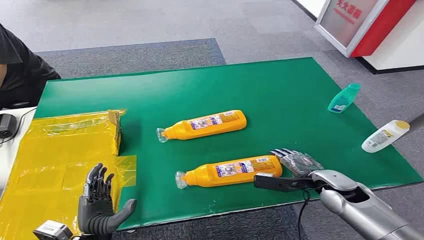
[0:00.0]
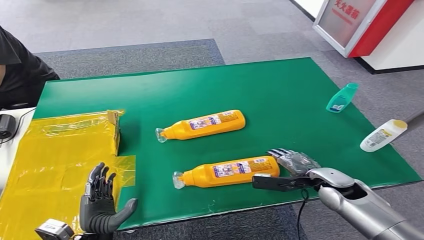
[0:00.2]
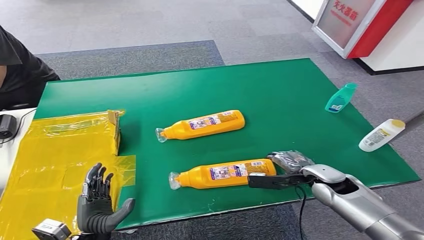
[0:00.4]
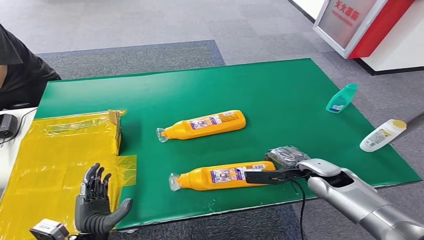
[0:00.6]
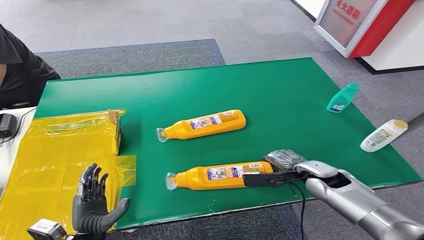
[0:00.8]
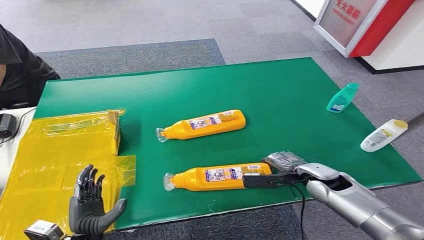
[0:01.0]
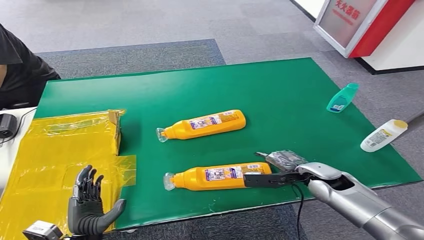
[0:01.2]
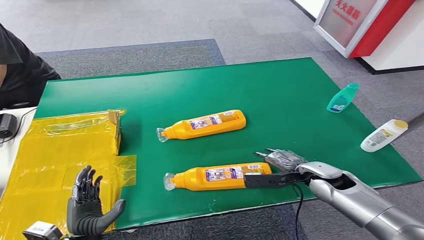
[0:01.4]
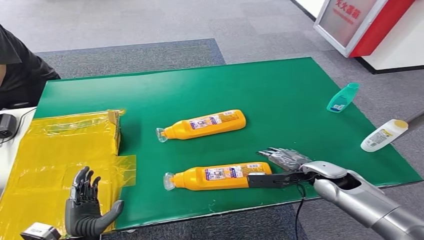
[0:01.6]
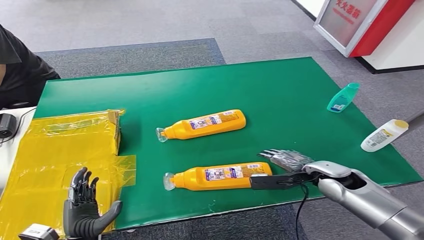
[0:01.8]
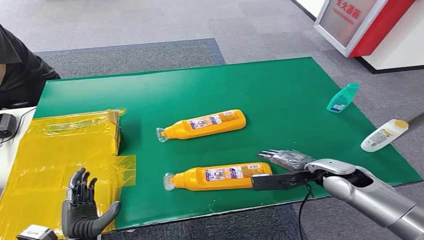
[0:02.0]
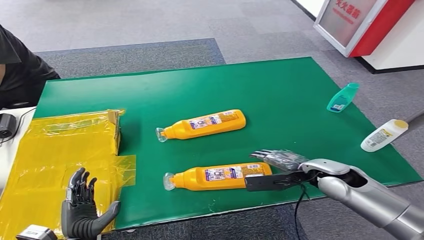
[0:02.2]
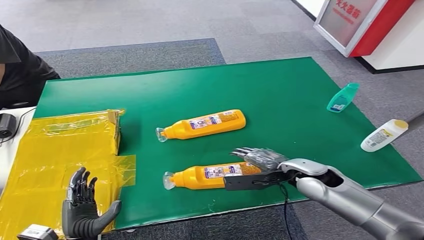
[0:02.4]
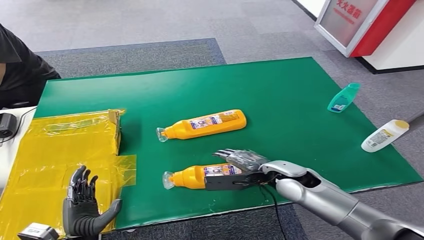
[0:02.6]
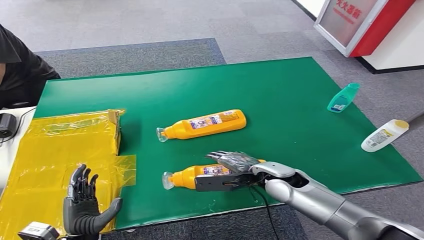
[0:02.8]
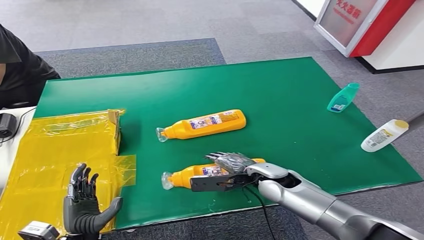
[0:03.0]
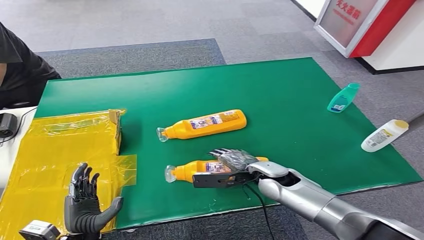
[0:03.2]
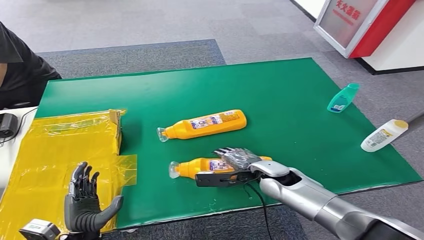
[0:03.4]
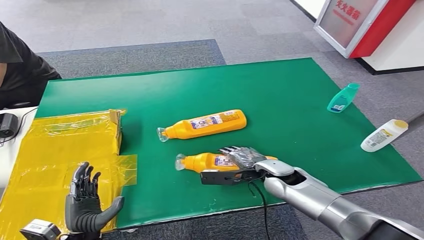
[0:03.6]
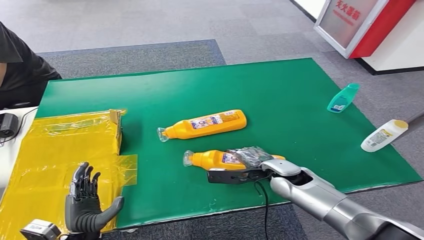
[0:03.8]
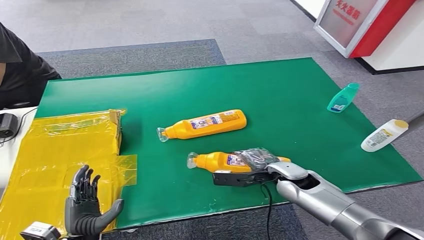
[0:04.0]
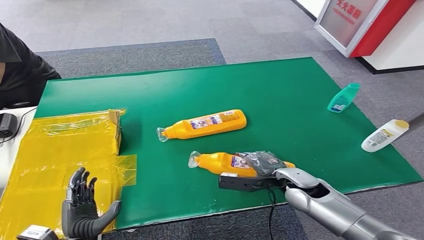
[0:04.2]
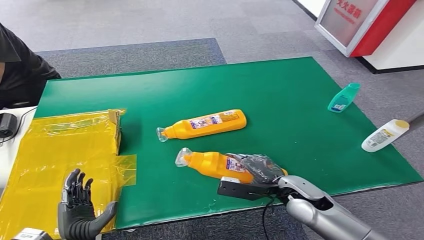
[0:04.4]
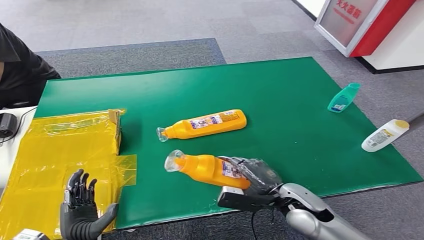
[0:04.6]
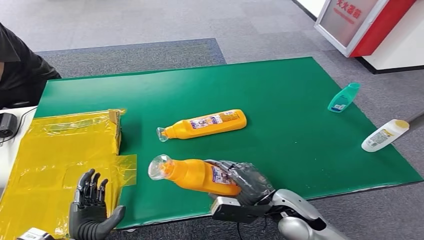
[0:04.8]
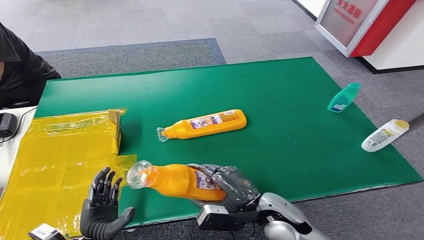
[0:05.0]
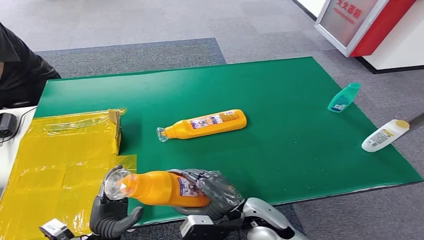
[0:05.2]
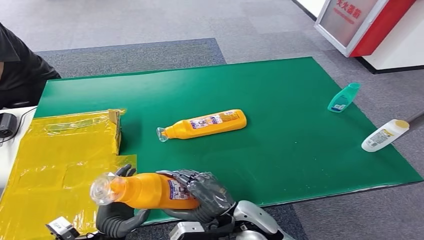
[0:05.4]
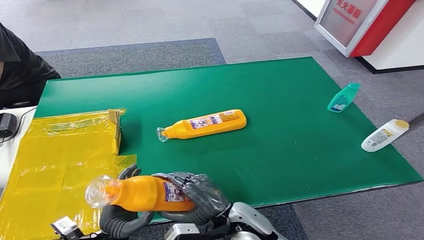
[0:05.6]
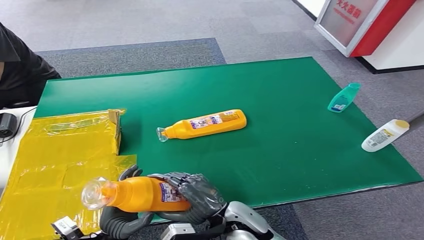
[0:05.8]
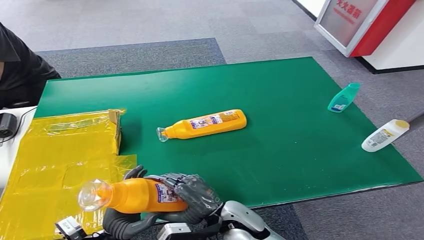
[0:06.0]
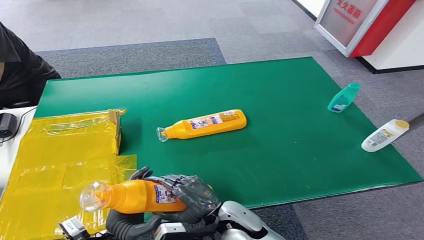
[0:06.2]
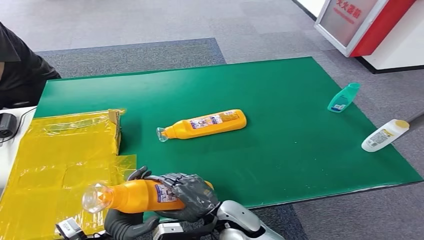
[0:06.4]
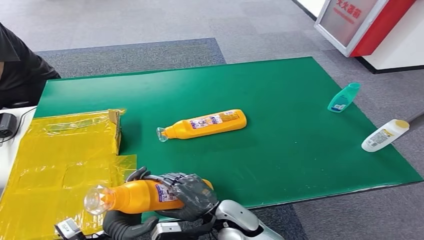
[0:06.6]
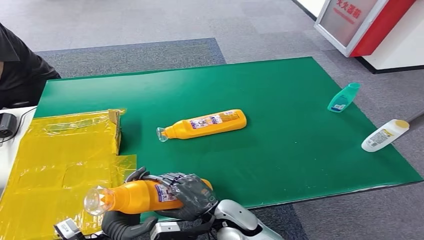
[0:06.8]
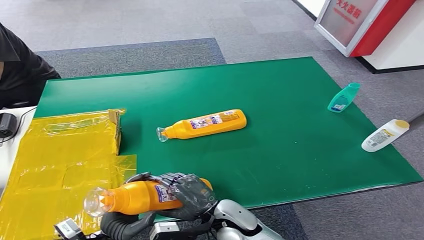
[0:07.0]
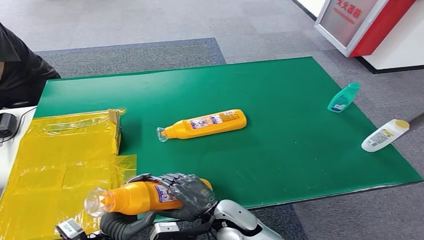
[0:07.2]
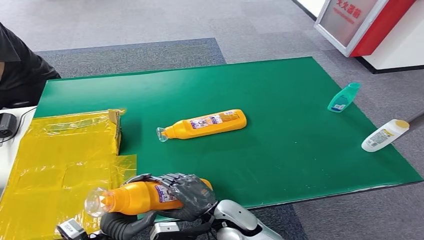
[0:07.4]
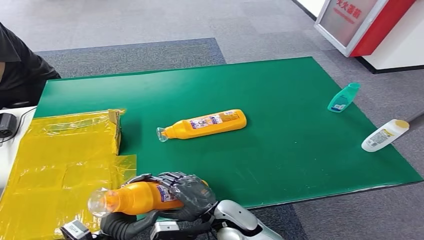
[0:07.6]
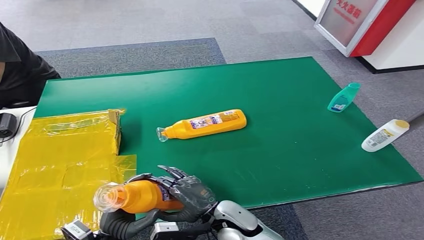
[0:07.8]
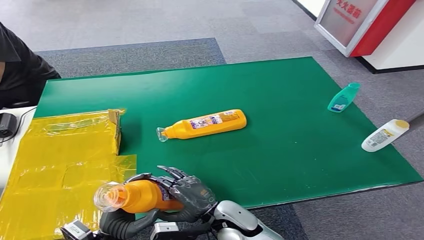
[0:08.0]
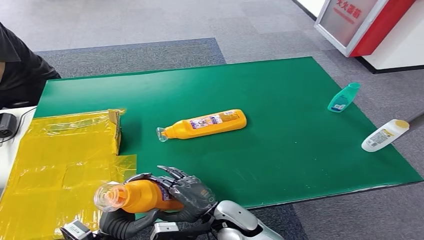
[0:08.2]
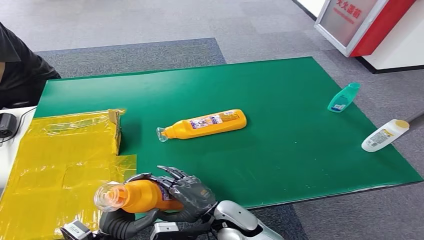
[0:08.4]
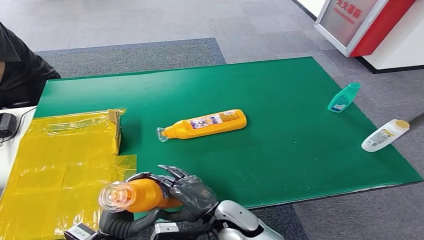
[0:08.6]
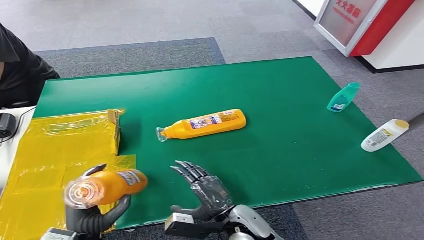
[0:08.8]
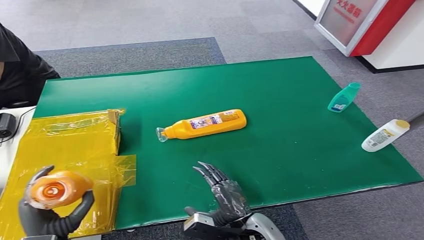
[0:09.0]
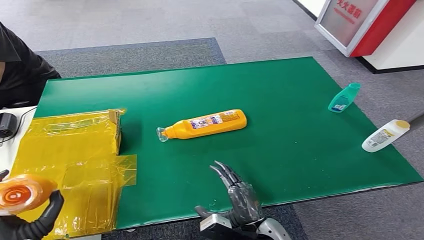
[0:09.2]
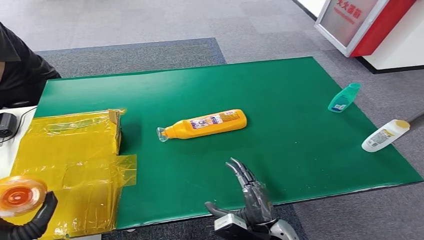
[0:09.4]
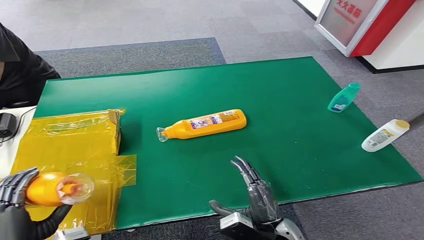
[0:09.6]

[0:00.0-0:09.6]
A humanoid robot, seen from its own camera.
Step, 0:00.0 to 0:05.6: Pick up the bottle from the table.
0:01.6 to 0:03.2: The right hand heads to the left, covering some 15 cm.
0:03.2 to 0:04.8: The right hand moves backward, about 10 cm.
0:04.8 to 0:06.4: The right hand travels to the left by about 10 cm.
0:06.4 to 0:08.0: There are only small adjustments of the hands.
0:08.0 to 0:09.6: The right hand travels to the right and backward by approximately 10 cm. The left hand shifts approximately 15 cm to the left and upward.

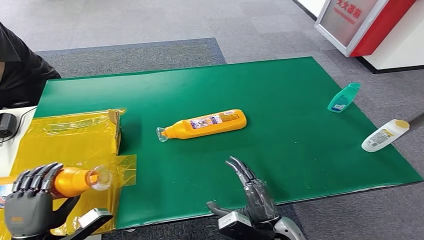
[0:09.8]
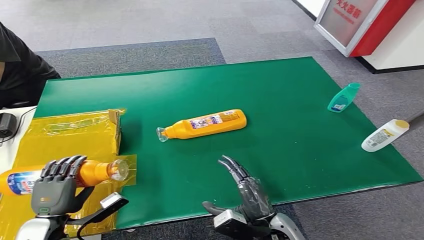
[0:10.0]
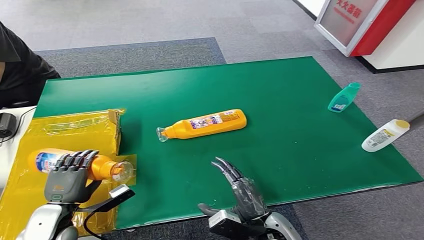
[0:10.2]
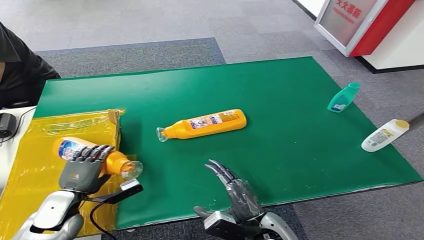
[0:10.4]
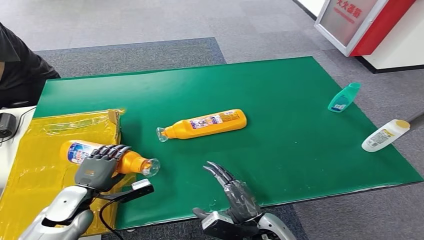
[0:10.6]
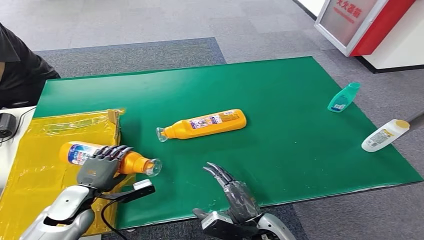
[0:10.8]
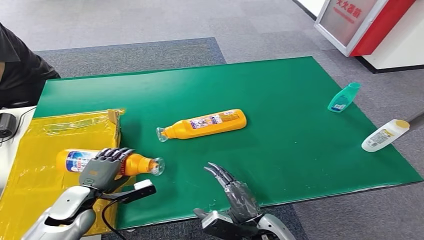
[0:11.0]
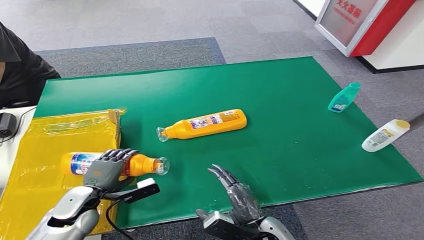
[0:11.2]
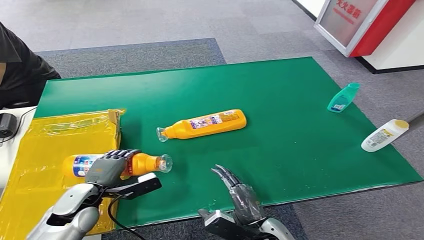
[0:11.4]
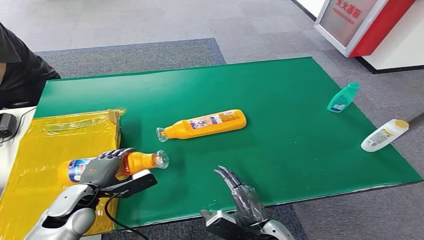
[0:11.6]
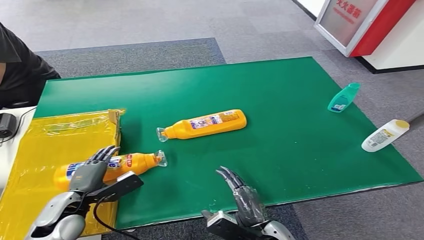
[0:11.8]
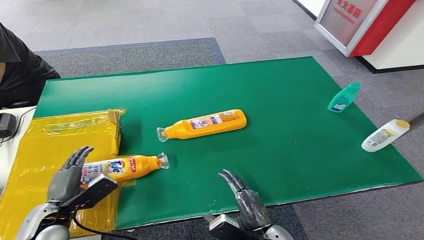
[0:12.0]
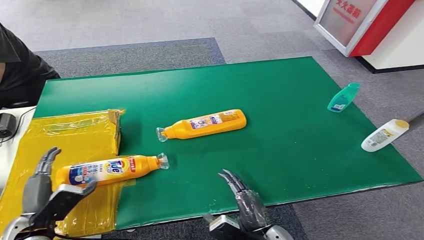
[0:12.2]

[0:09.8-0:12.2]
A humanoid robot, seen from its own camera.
Step, 0:09.8 to 0:12.2: Turn the bottle to the front side.
0:09.8 to 0:11.0: The left hand is displaced forward by some 10 cm.
0:11.0 to 0:12.2: The left hand travels backward and to the left by some 10 cm.

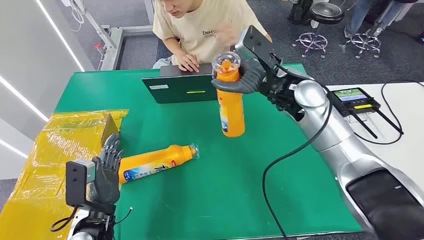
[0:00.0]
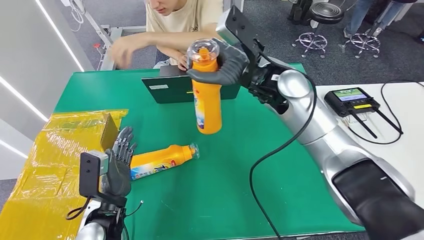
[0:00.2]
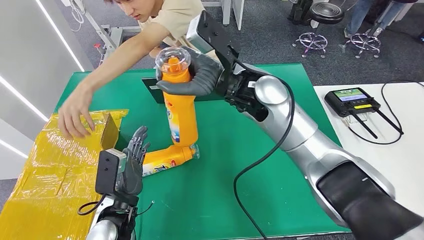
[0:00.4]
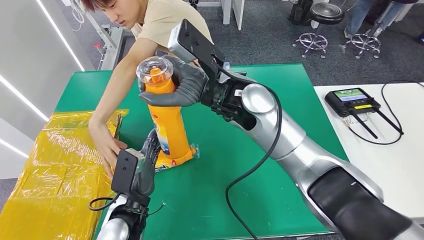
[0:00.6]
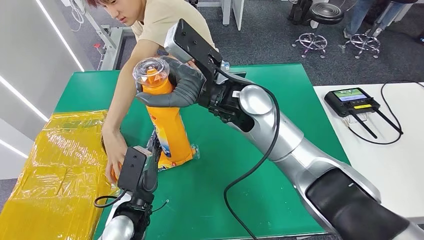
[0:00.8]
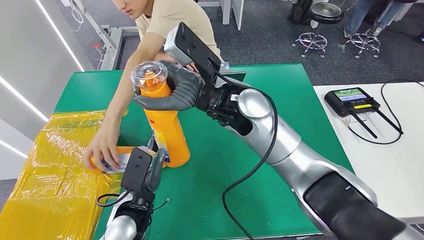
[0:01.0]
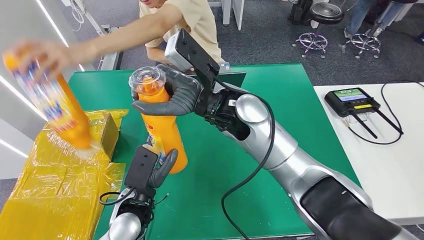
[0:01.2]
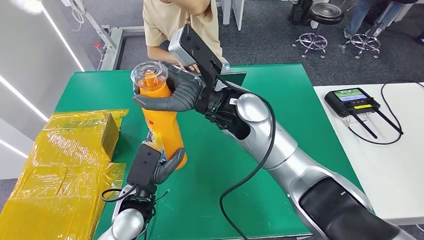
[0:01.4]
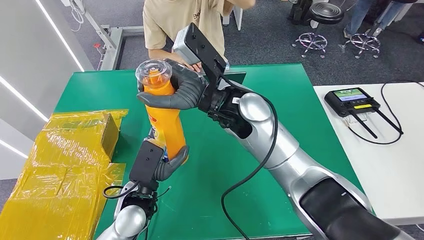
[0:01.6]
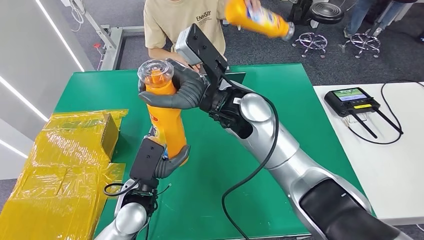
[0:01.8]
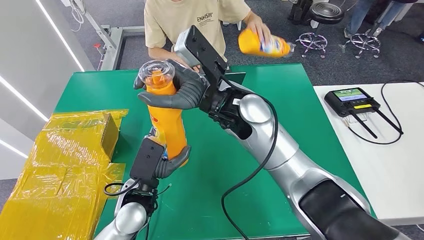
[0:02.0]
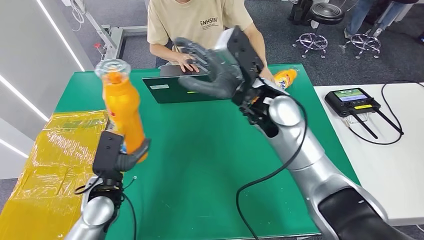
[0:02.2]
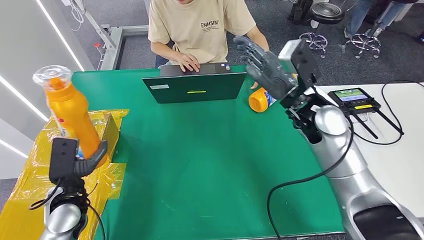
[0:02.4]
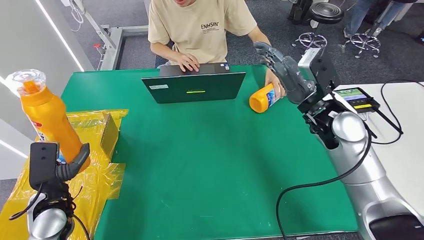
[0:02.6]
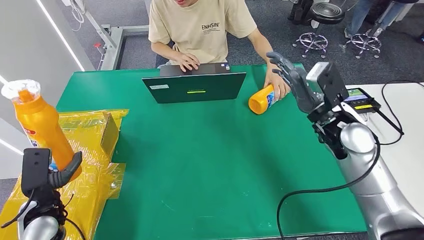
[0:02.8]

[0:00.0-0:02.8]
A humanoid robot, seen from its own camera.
Step, 0:00.0 to 0:00.8: Pick up the bottle from the table.
Step, 0:01.2 to 0:02.8: Turn the bottle to the front side.
